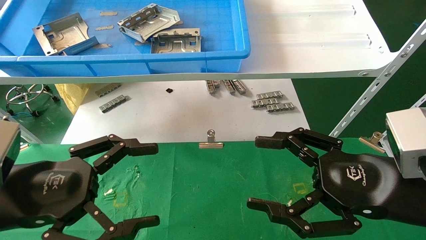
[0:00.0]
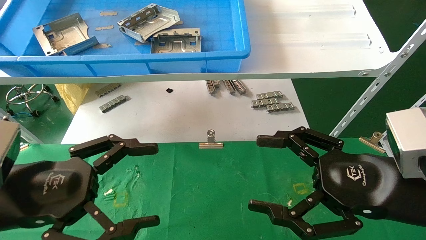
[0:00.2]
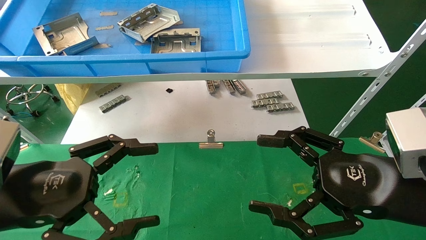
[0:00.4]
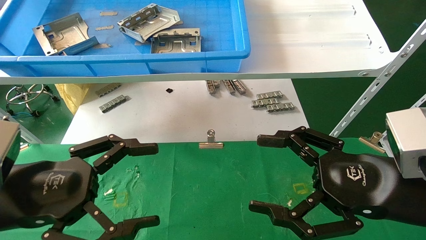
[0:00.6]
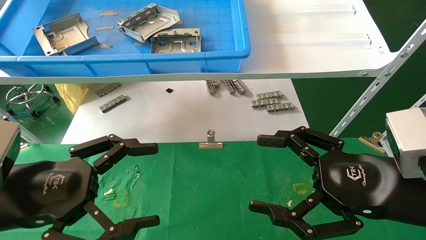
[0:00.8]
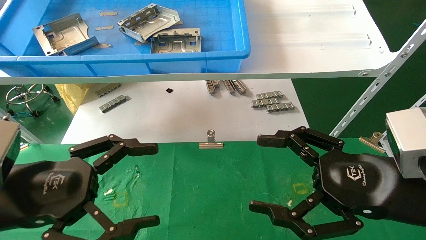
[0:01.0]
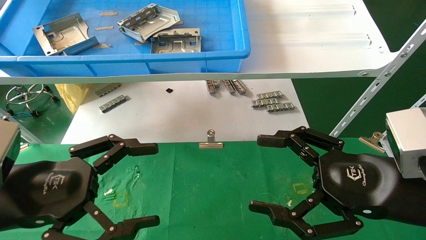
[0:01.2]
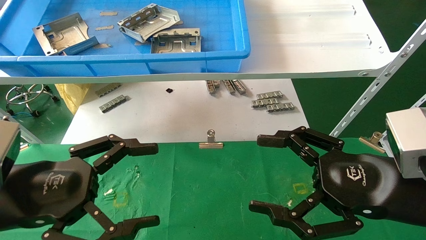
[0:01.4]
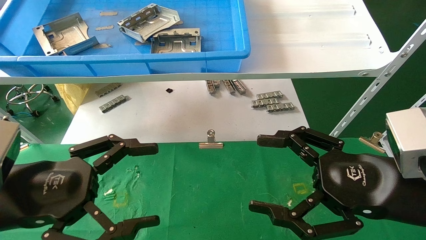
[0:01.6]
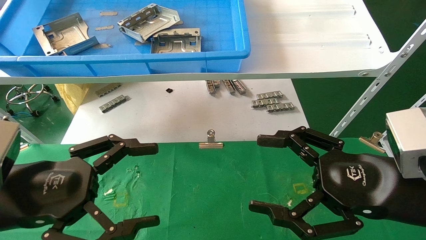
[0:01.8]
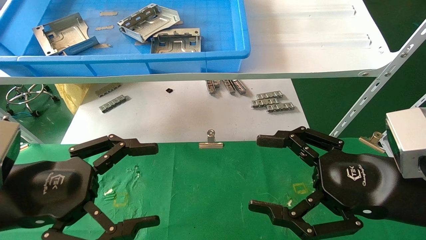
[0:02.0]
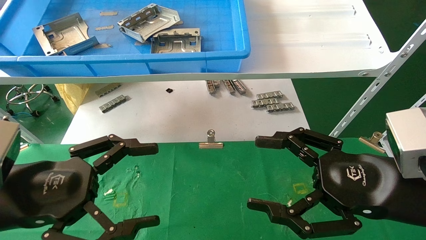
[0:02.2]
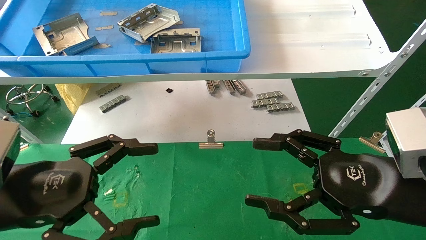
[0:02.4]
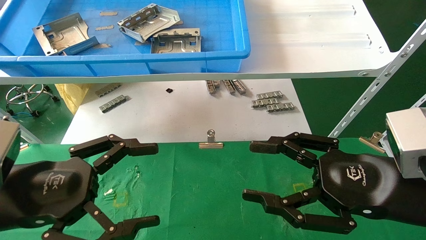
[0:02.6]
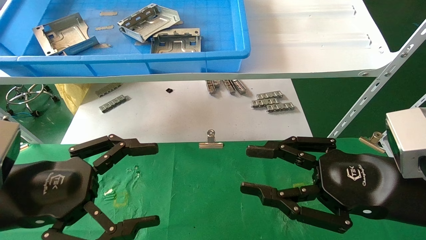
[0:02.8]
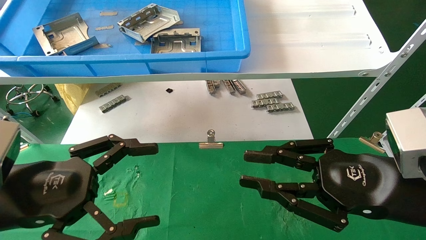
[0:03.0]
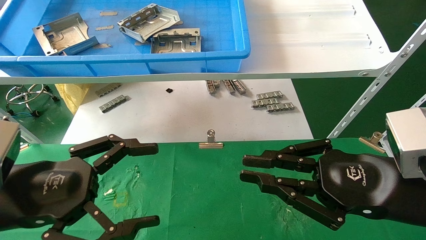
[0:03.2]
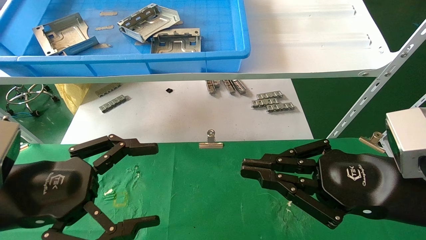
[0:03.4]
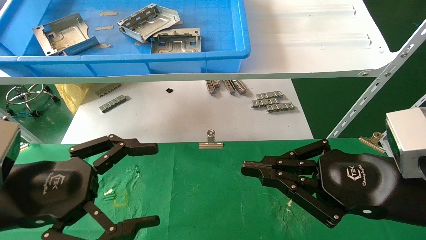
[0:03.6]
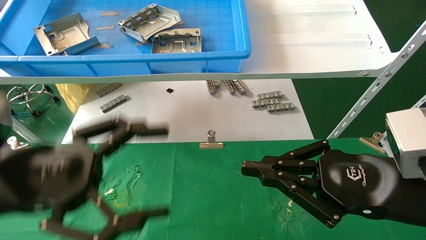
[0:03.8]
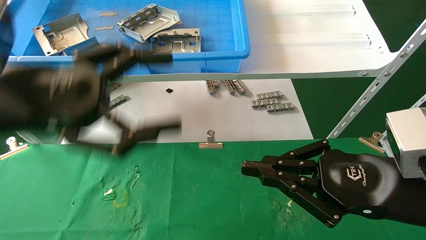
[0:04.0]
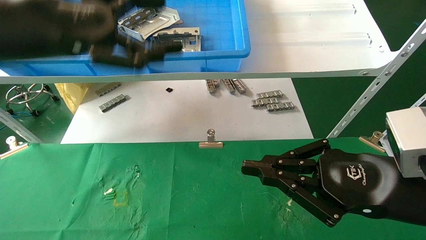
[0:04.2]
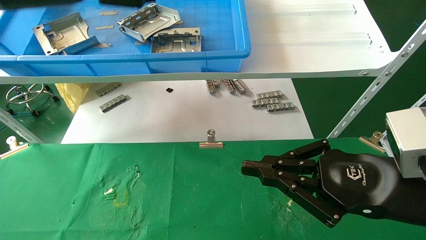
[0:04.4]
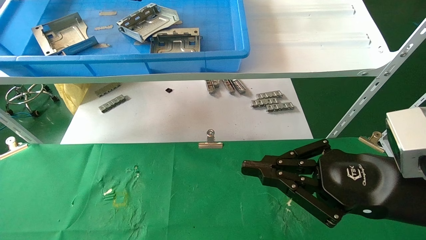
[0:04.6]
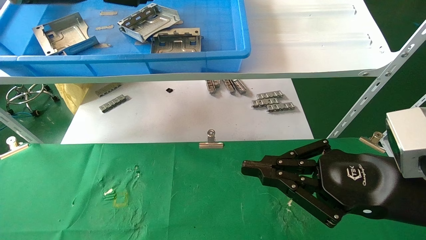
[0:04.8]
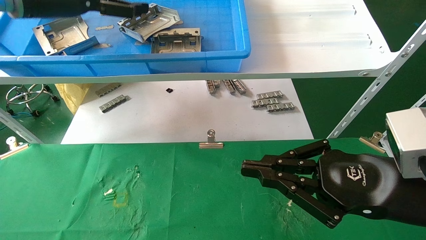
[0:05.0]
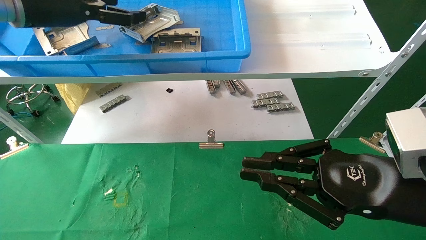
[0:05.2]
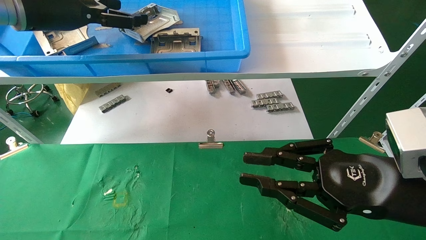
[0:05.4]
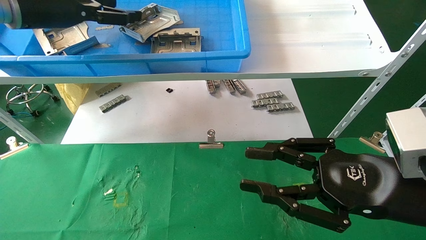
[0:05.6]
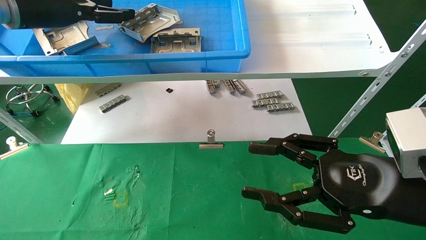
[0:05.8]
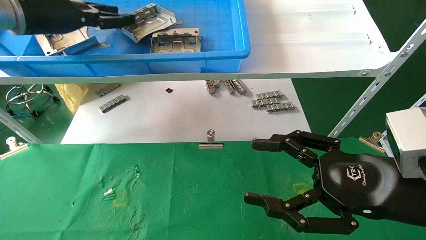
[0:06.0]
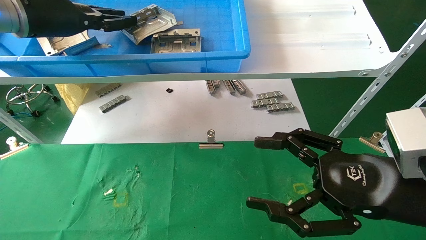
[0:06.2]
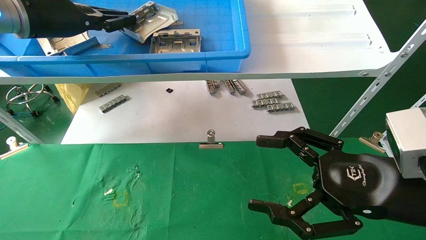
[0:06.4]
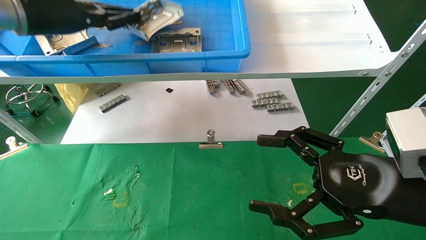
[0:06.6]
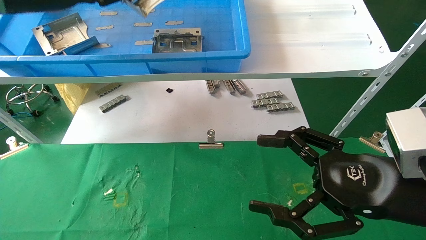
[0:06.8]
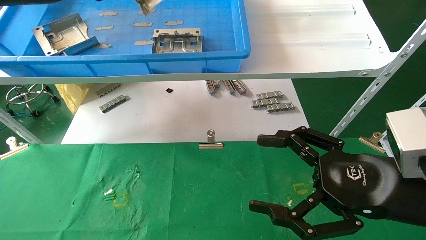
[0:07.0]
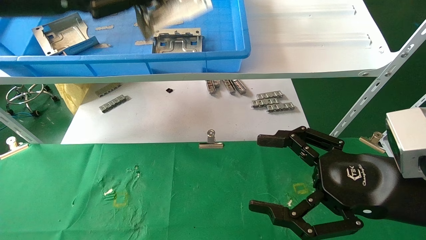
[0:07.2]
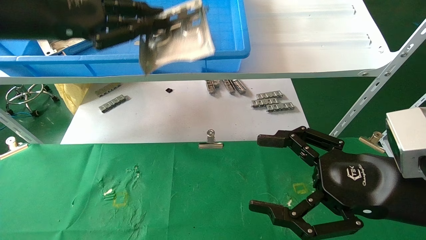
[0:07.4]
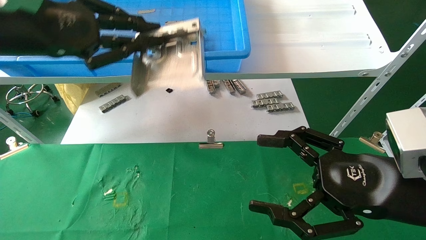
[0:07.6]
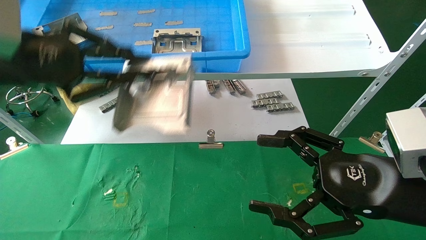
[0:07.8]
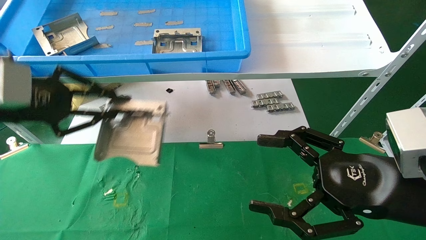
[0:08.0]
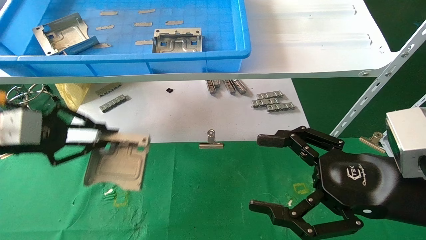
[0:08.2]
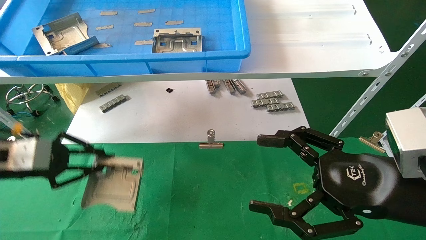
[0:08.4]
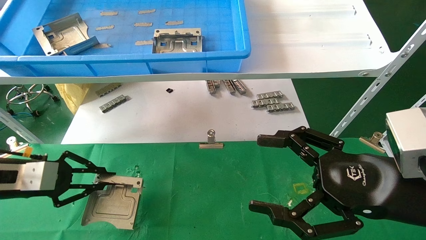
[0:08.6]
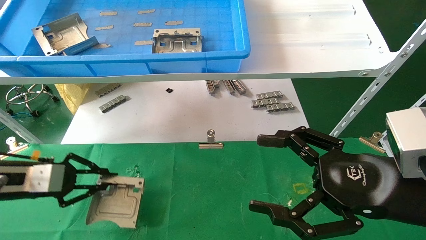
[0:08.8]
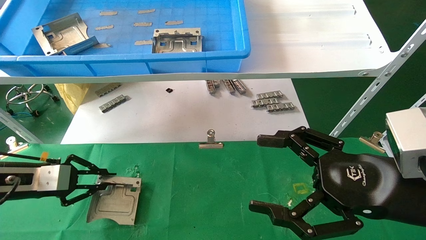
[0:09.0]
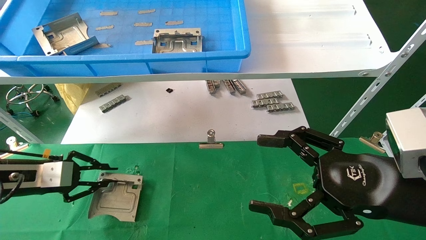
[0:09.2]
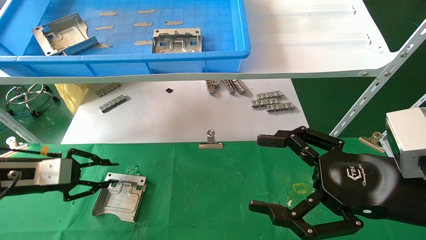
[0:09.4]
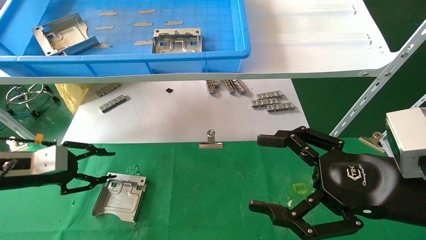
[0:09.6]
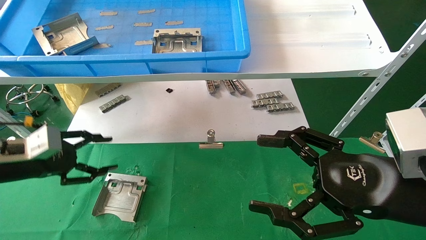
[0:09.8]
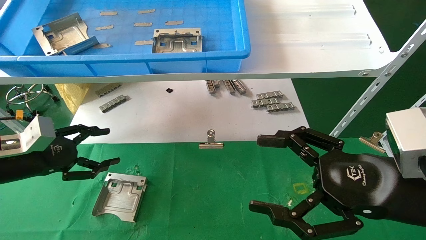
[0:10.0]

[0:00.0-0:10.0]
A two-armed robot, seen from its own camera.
Task of the whole recording: use the mechanical arm to pick up the parts and place them on the table.
Step, 0:04.0 to 0:06.4: Pick up the hard drive bracket from the feeding area.
Step, 0:06.6 to 0:09.2: Place the hard drive bracket into the box.
0:00.0 to 0:01.4: Neither gripper changes place.
0:01.4 to 0:02.8: The right gripper closes.
0:02.8 to 0:04.2: The left gripper shifts roughly 20 cm upward and forward. The right gripper closes its fingers.
0:04.2 to 0:05.8: The left gripper moves forward and to the left, approximately 15 cm, while the right gripper opens its fingers.
0:05.8 to 0:07.2: The left gripper shifts roughly 10 cm backward, and closes; the right gripper opens.
0:07.2 to 0:08.6: The left gripper moves downward and to the left, about 30 cm.
0:08.6 to 0:10.0: The left gripper opens up.

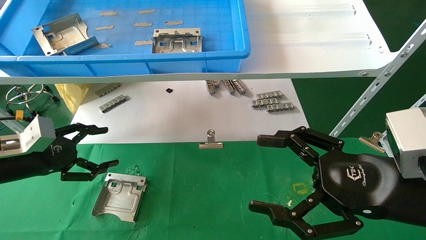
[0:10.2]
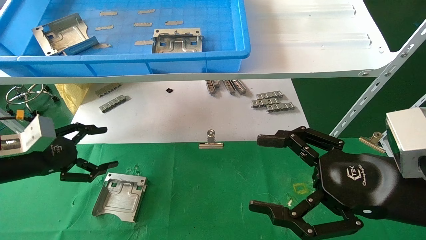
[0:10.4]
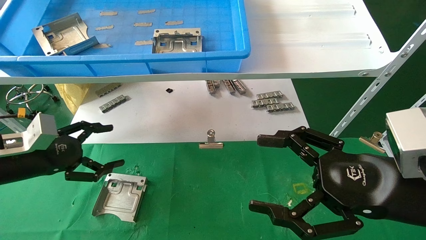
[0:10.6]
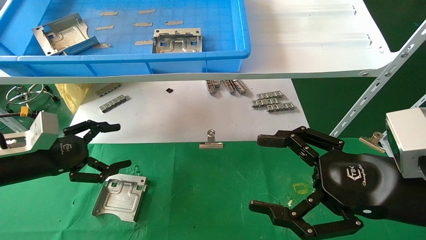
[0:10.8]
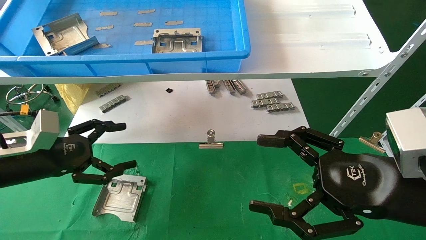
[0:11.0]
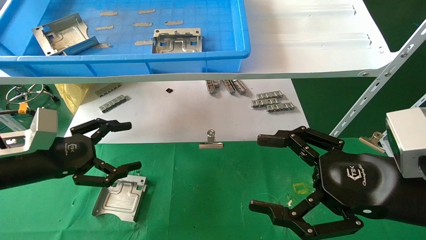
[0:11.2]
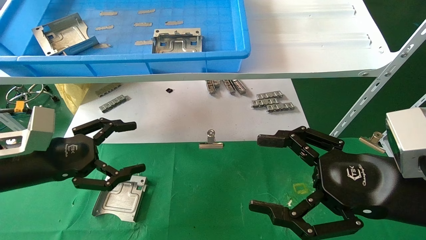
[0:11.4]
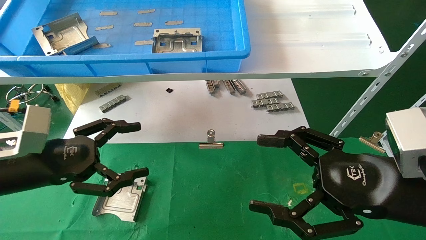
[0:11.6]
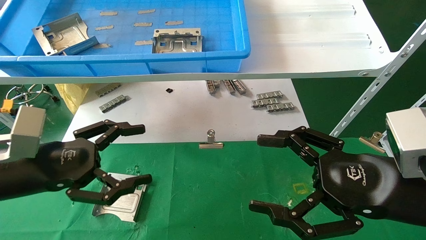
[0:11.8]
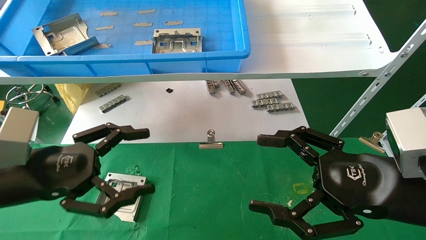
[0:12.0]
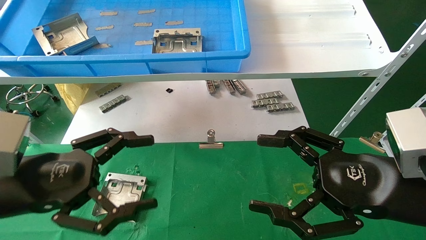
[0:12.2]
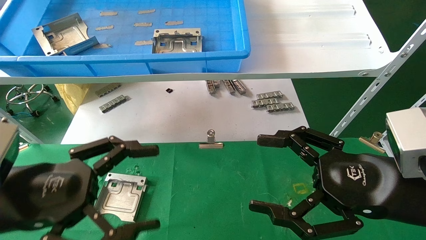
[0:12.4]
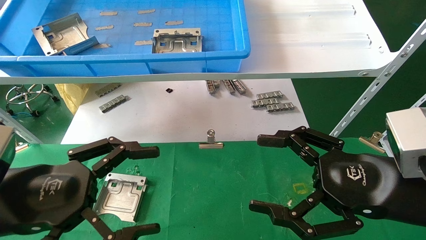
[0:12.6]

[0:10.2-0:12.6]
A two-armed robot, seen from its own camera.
Task of the whole recording: use the mechanical arm to pick up the parts and place them on the table.
0:10.2 to 0:11.4: The left gripper moves to the right, roughly 5 cm.
0:11.4 to 0:12.6: The left gripper heads backward and to the right, covering roughly 10 cm.

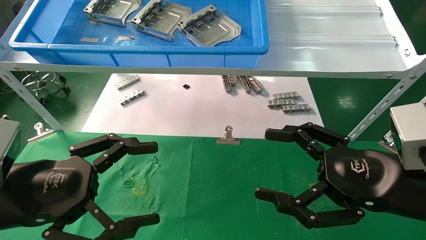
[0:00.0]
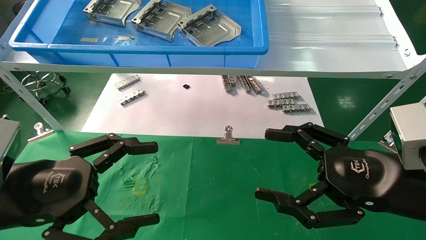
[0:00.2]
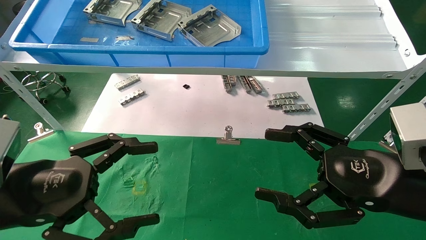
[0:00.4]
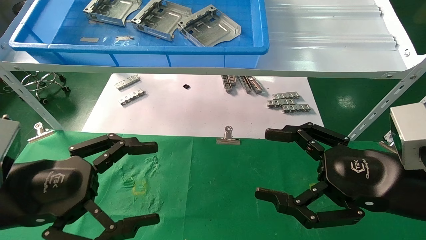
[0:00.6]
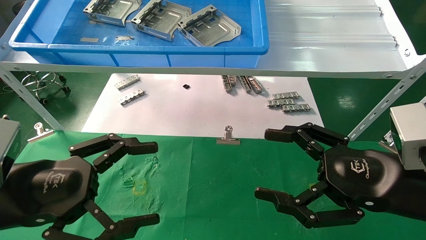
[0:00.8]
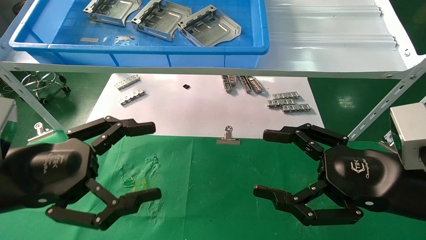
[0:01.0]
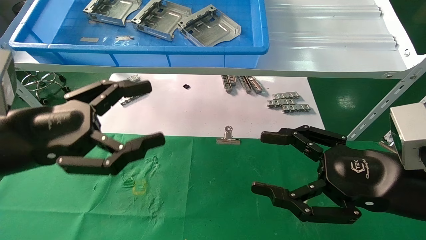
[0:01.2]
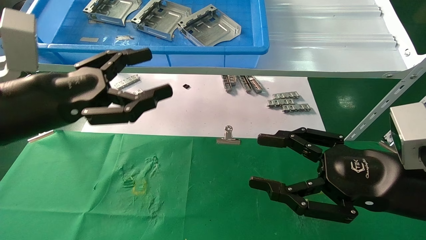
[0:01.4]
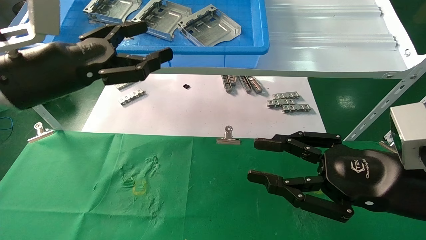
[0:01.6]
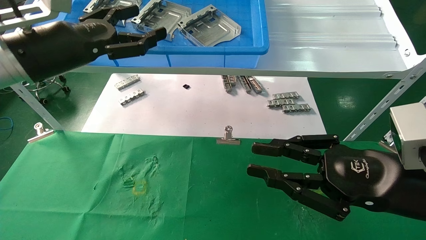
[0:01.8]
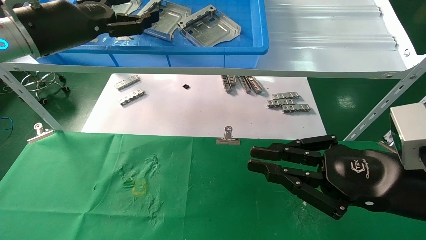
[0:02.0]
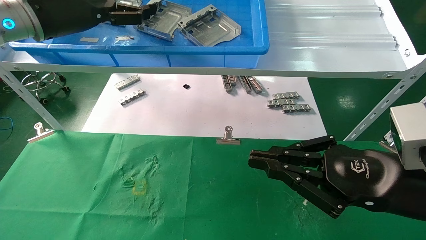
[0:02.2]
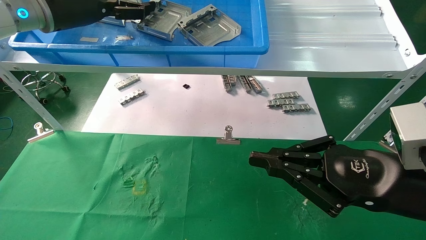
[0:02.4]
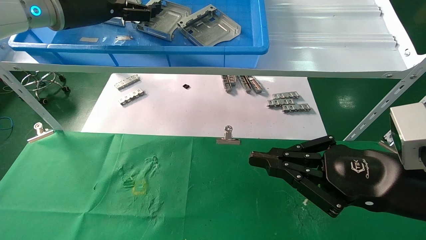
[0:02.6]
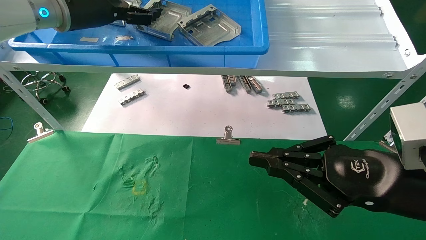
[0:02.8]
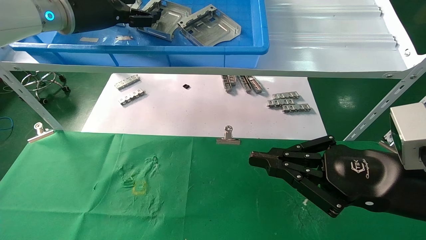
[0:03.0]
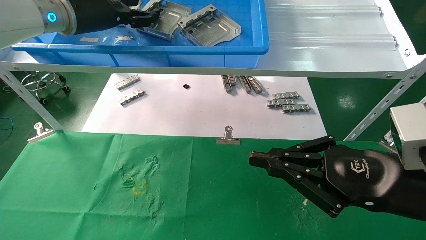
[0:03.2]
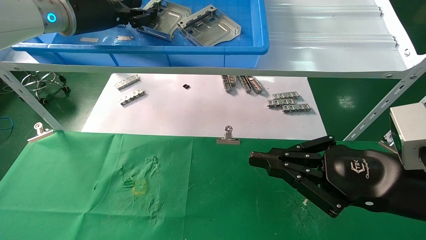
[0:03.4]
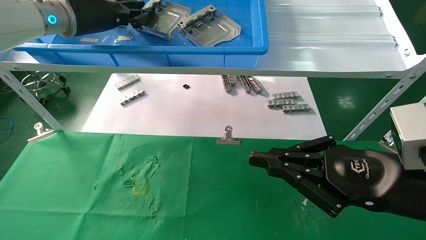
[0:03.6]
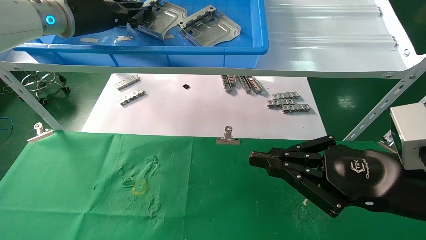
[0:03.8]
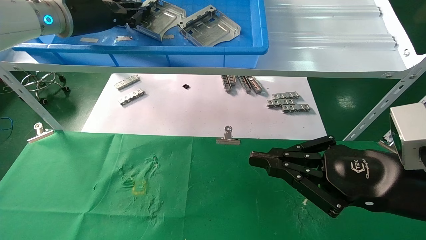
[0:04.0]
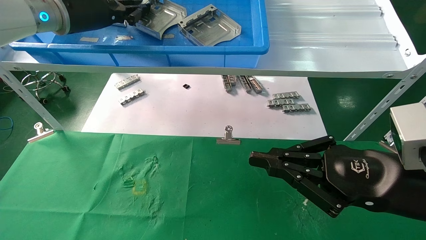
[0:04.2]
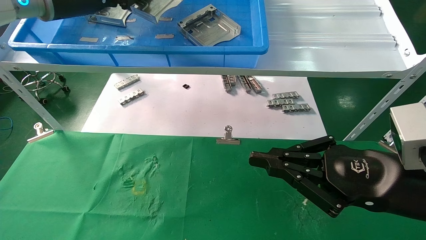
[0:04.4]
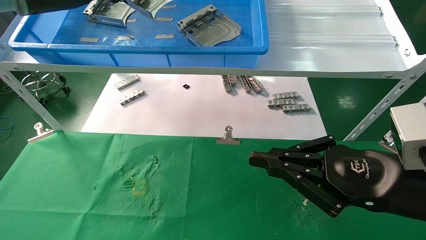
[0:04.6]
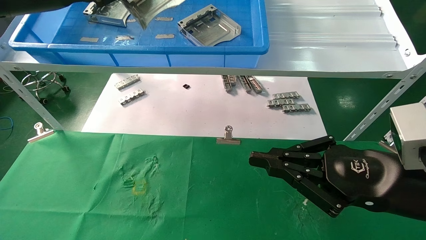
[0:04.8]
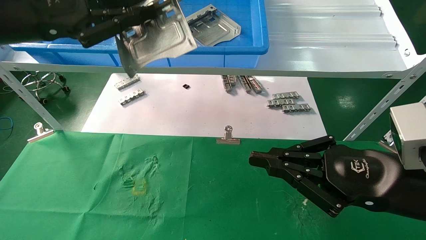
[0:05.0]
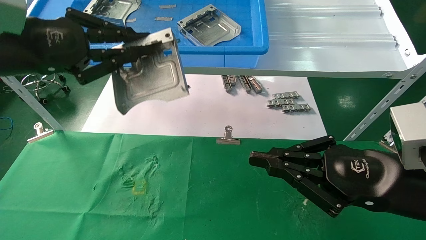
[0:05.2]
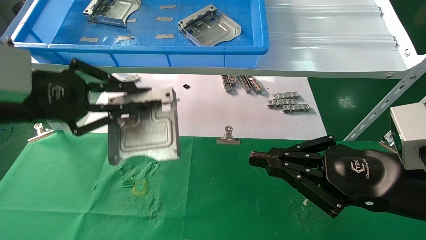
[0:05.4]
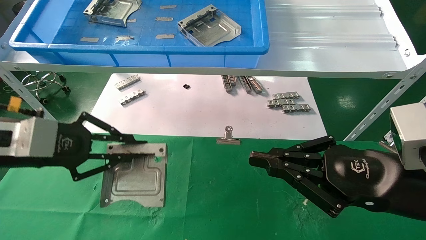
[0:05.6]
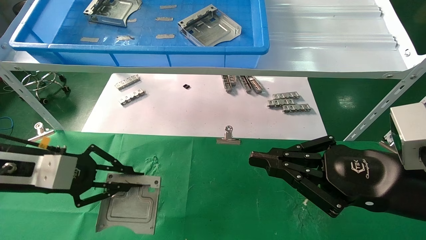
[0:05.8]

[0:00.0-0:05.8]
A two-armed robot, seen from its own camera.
Task of the whole recording: use the mechanical arm to pick up the parts and place them on the table.
Step, 0:01.0 to 0:04.0: Pick up the hard drive bracket from the feeding area.
0:00.0 to 0:01.4: The left gripper shifts about 10 cm upward and forward.
0:01.4 to 0:02.8: The left gripper travels forward and upward by some 20 cm. Meanwhile the right gripper closes its fingers.
0:02.8 to 0:04.4: The left gripper closes.
0:04.4 to 0:05.8: The left gripper shifts some 25 cm downward and backward.
